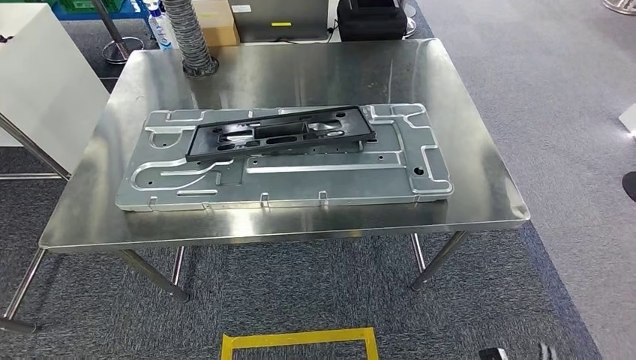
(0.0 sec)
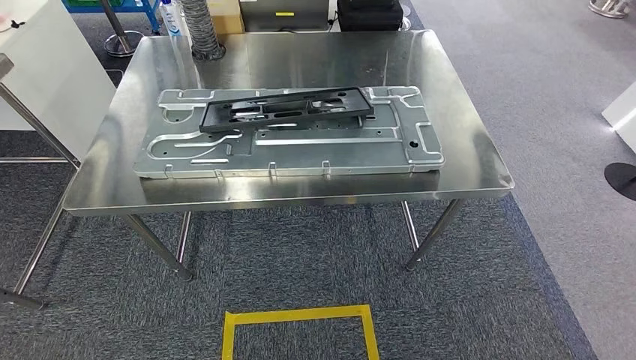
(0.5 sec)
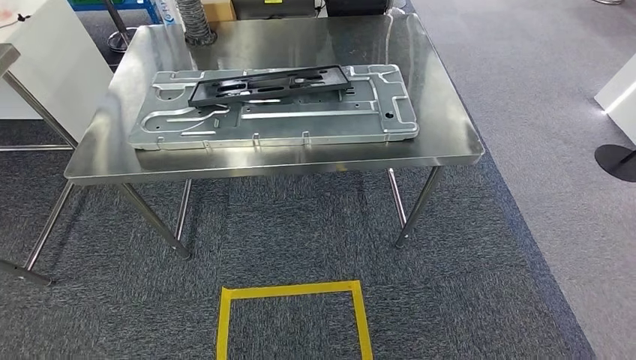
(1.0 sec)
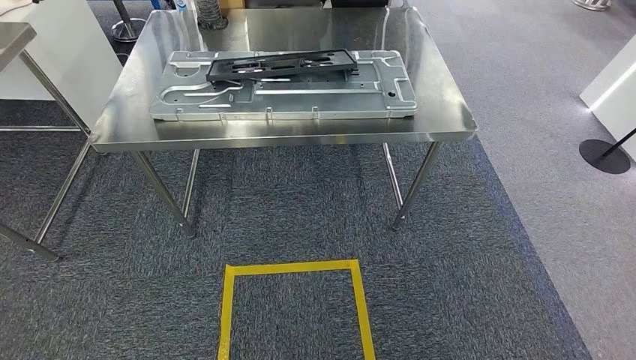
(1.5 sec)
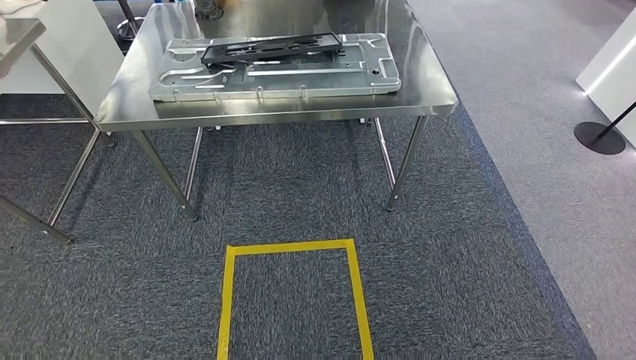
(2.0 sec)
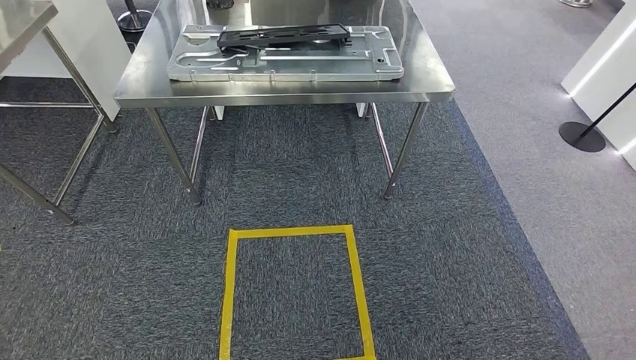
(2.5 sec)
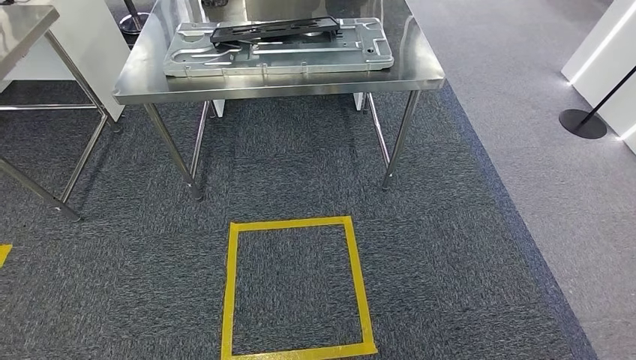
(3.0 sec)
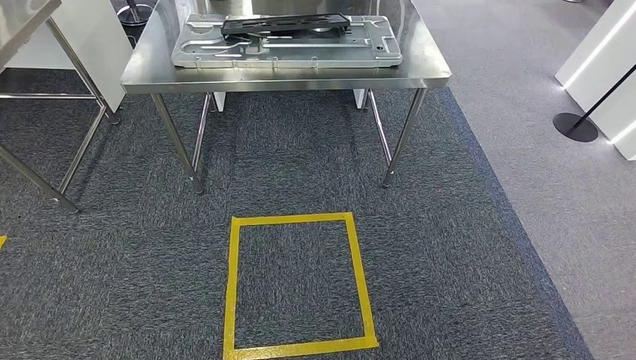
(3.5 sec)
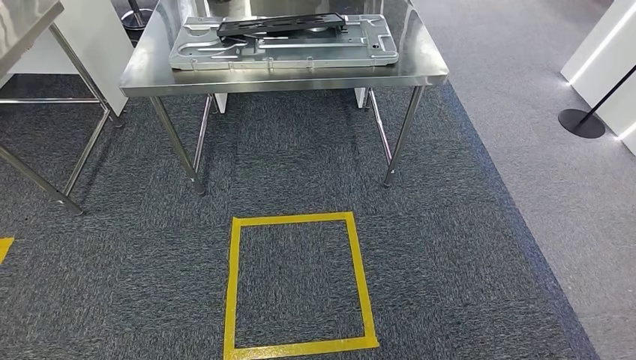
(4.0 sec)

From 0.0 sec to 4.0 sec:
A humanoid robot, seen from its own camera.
Step, from 0.5 sec to 4.0 sec: Return to the initial position at the shelf.

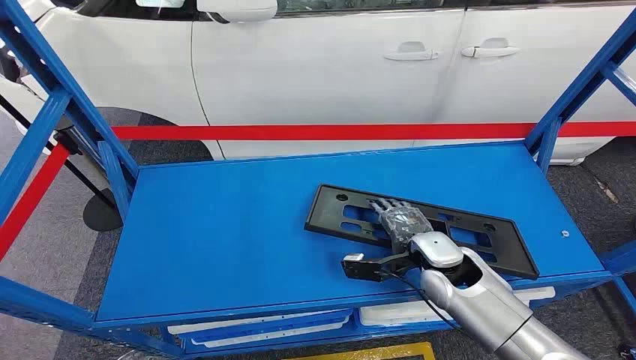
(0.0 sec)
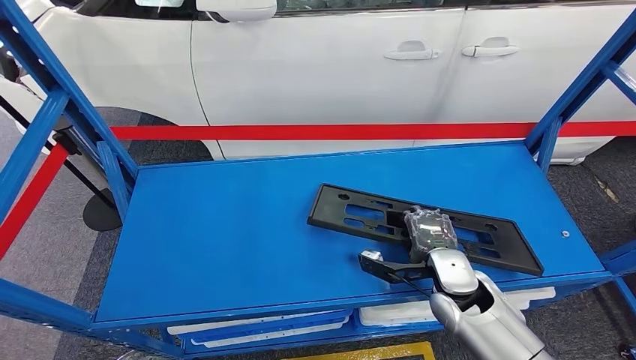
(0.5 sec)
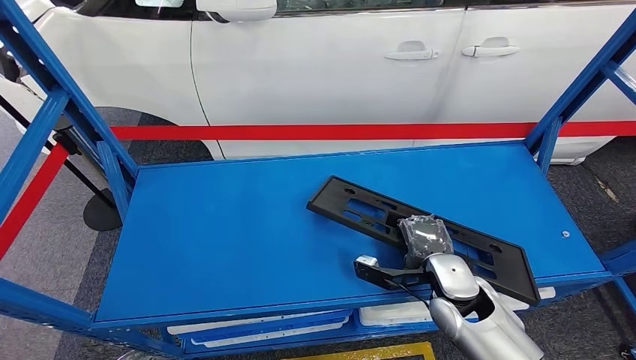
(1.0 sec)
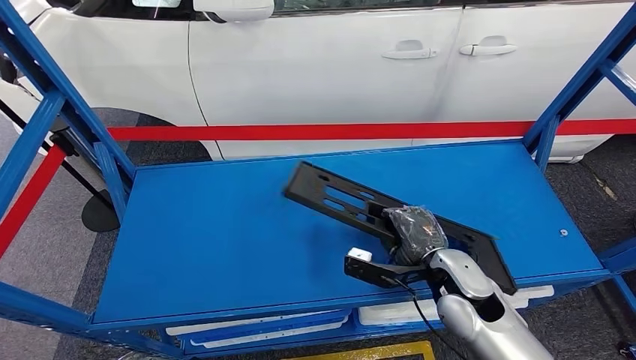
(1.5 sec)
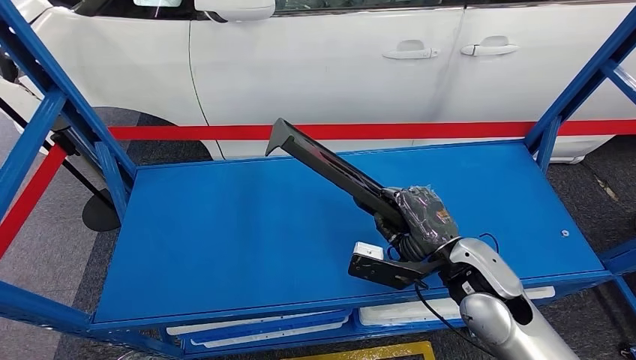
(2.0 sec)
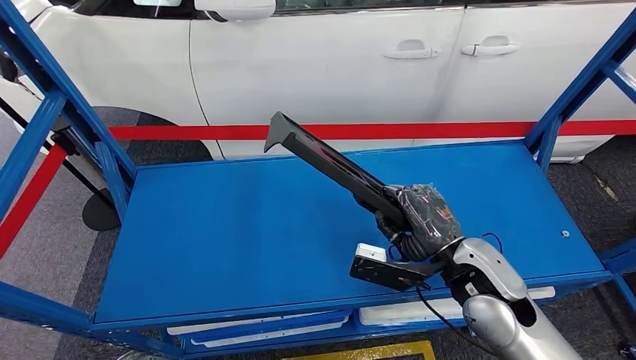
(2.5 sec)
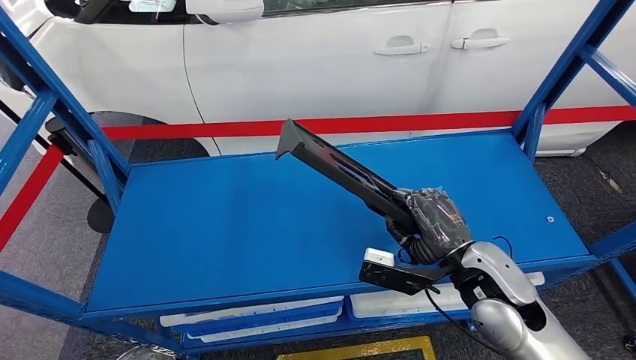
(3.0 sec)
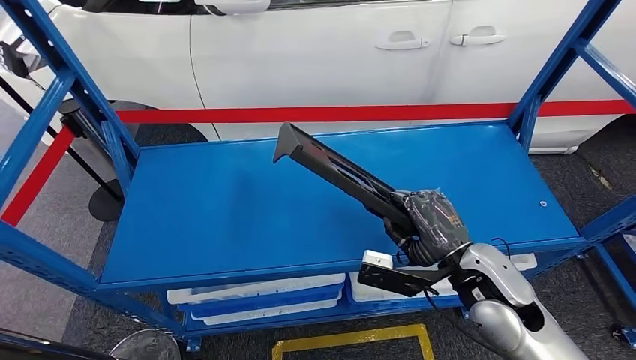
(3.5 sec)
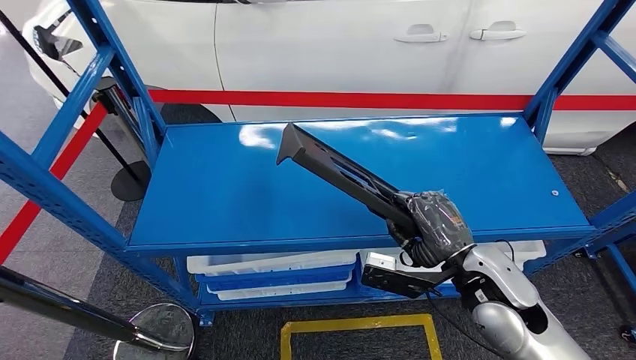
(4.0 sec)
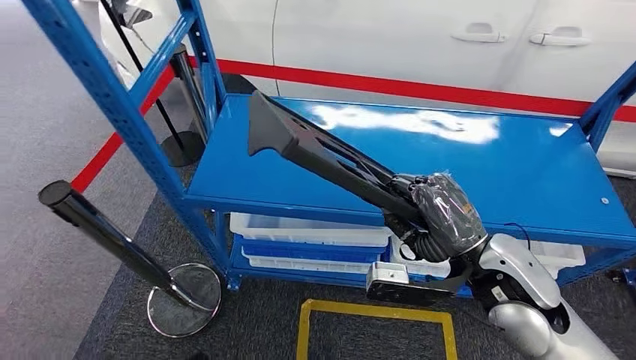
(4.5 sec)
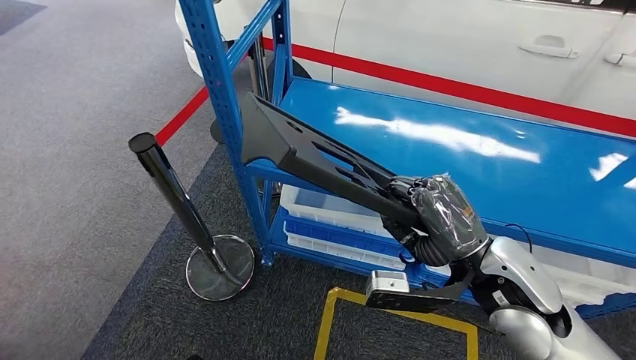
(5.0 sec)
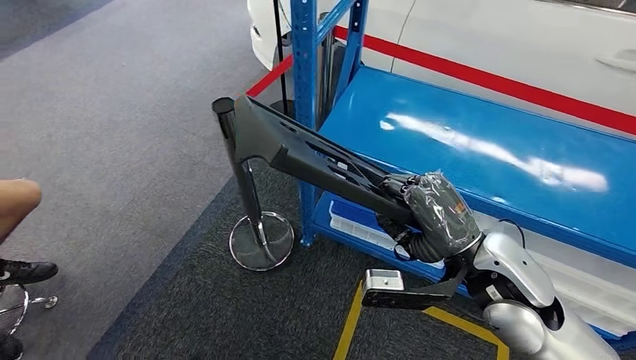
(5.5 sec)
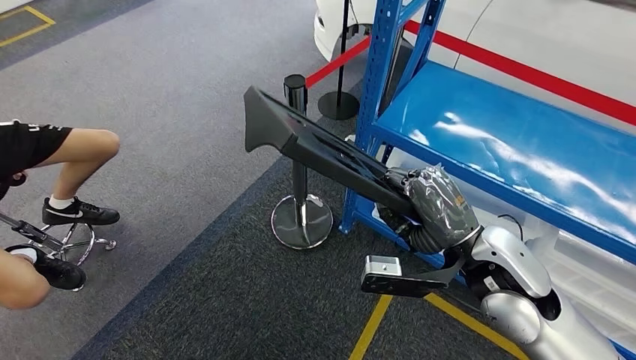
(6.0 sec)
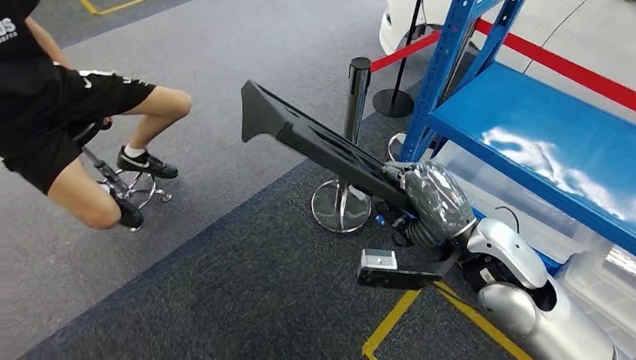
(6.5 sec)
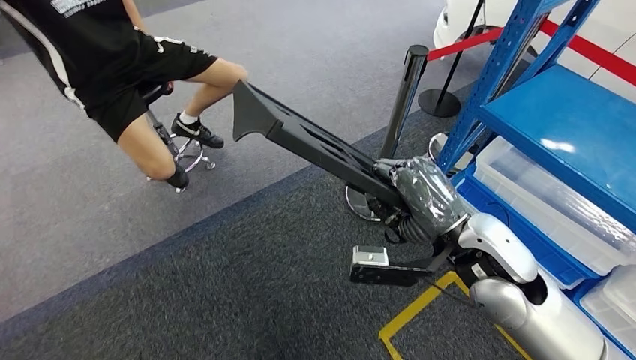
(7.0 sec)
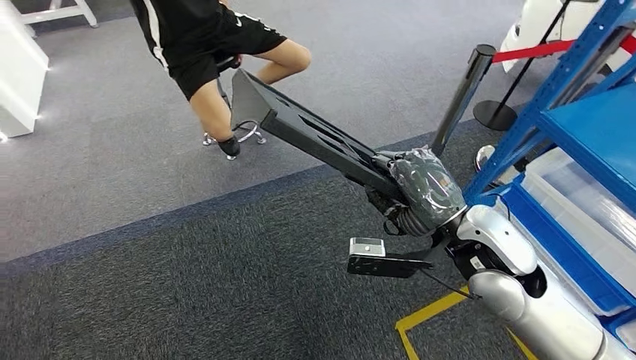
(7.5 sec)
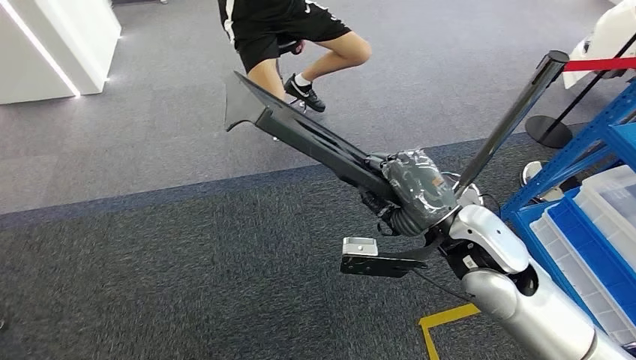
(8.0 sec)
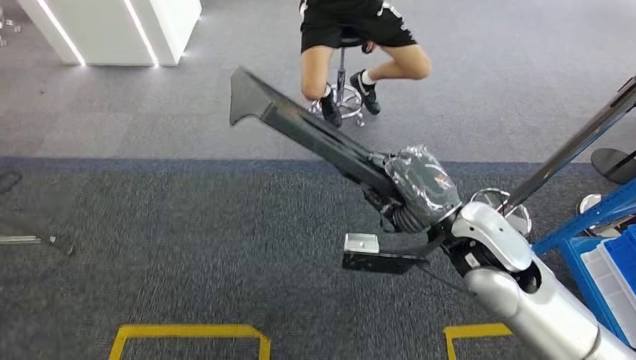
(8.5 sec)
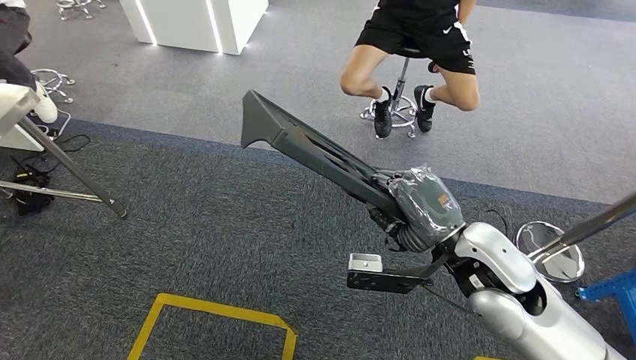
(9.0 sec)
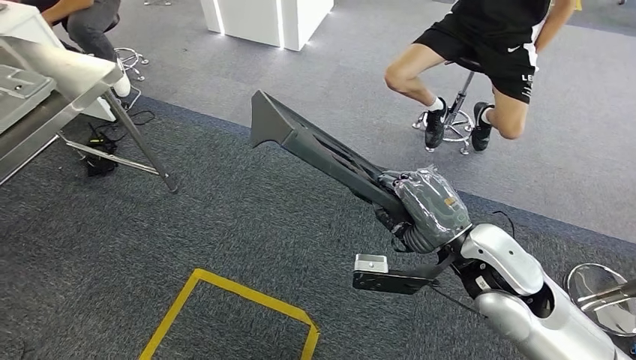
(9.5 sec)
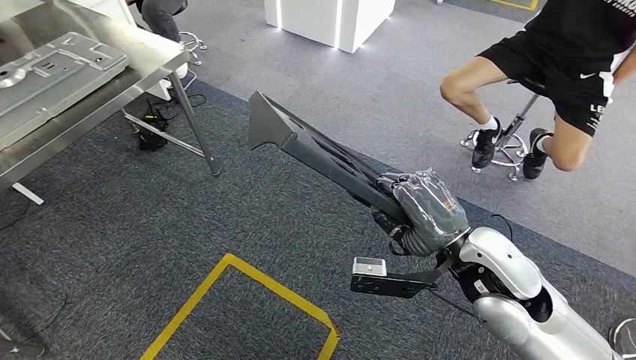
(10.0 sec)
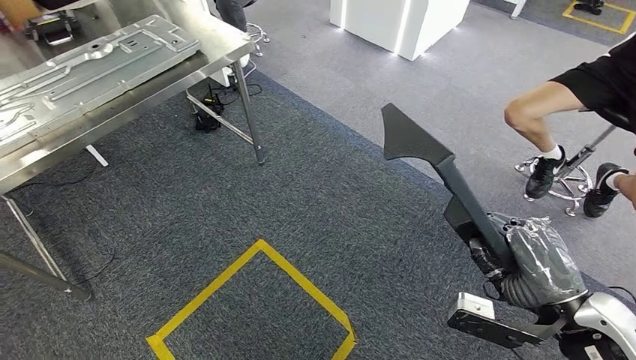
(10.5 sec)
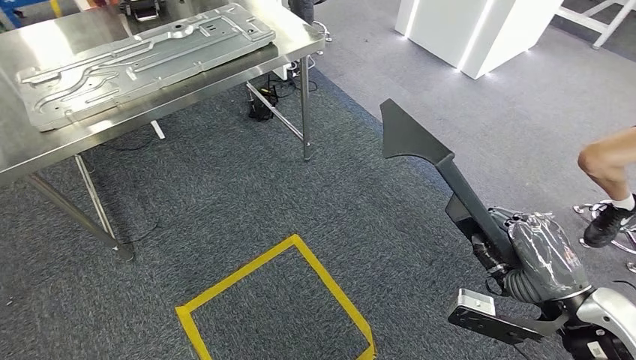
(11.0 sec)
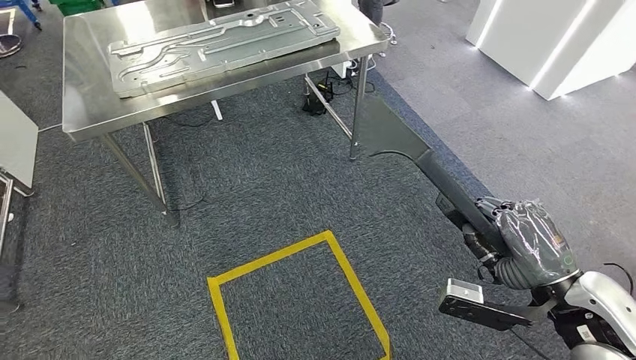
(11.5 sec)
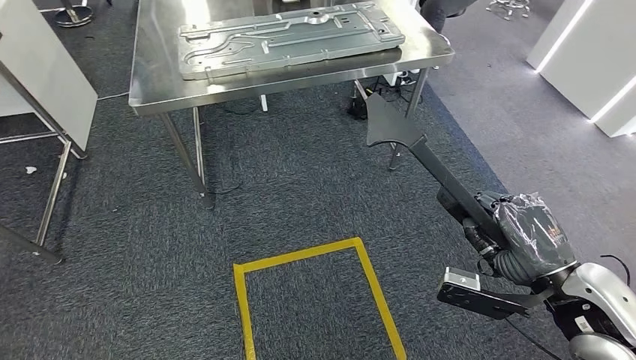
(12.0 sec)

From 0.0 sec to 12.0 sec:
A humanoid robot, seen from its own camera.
Step, from 0.0 sec to 4.5 sec: Pick up the large parts from the shelf.

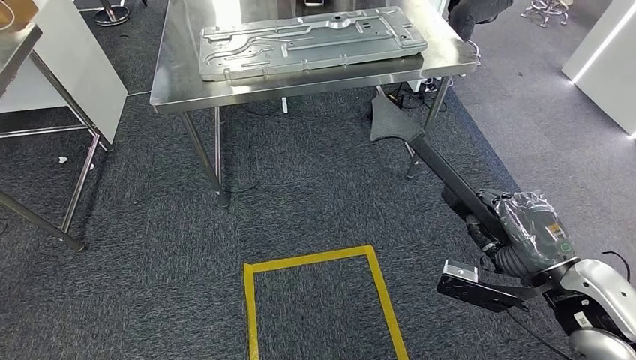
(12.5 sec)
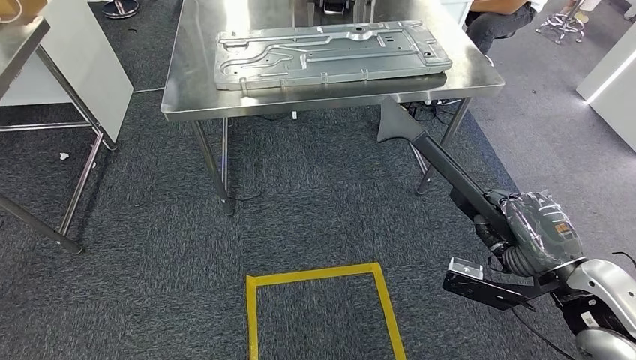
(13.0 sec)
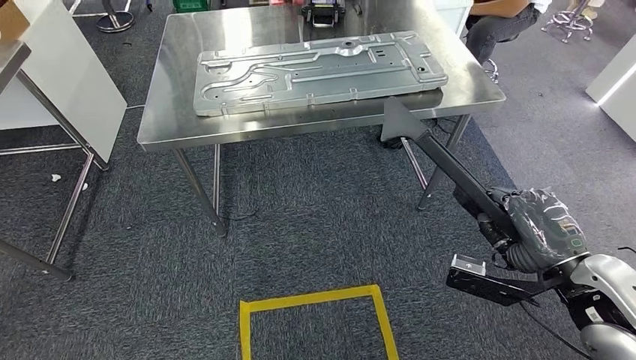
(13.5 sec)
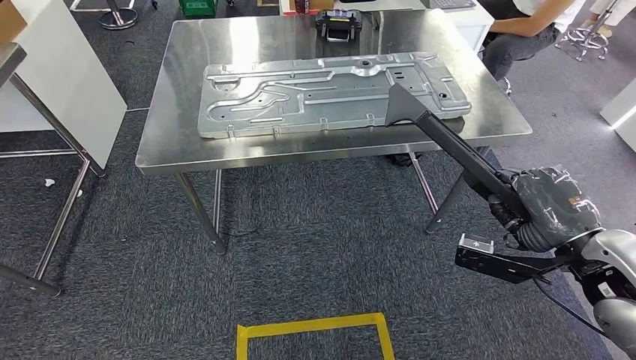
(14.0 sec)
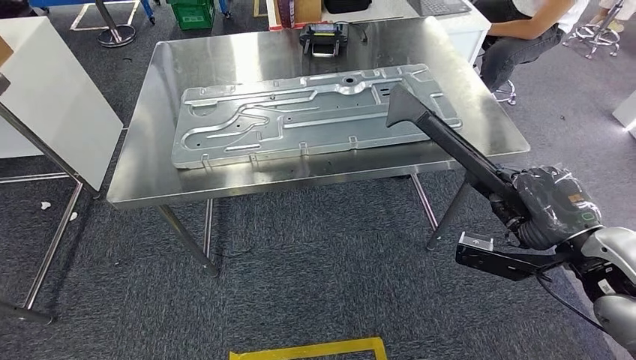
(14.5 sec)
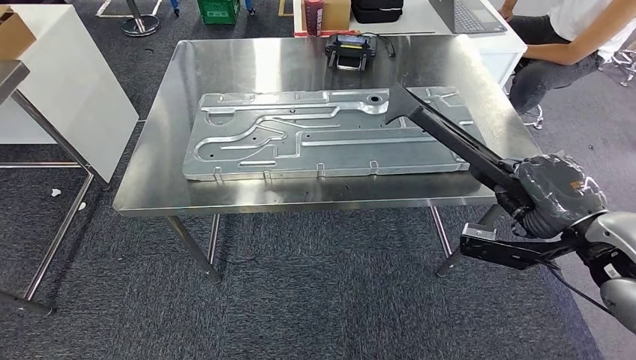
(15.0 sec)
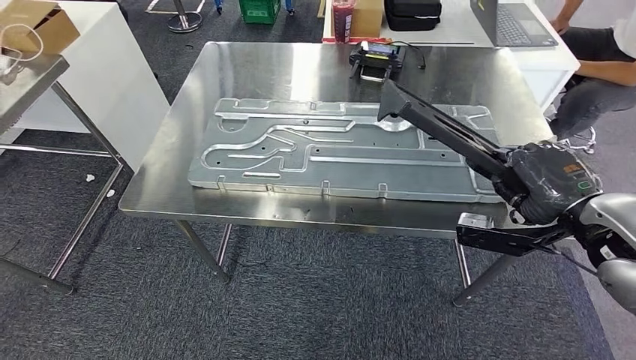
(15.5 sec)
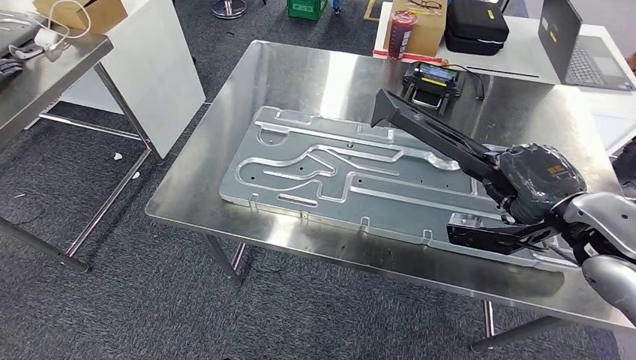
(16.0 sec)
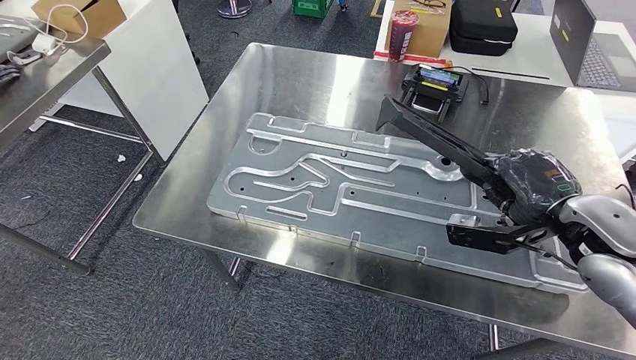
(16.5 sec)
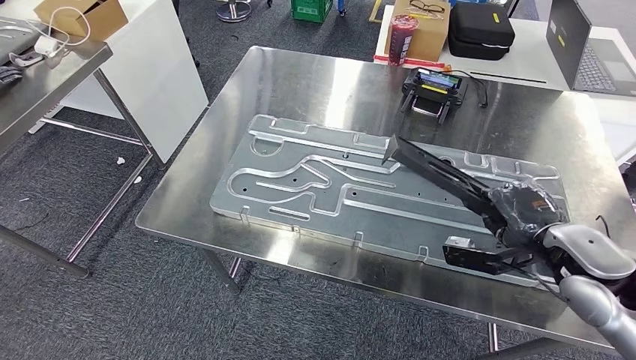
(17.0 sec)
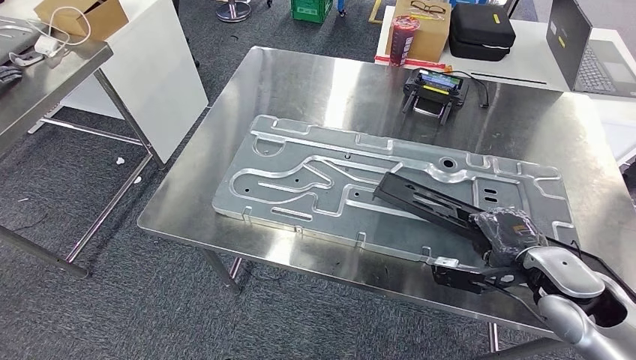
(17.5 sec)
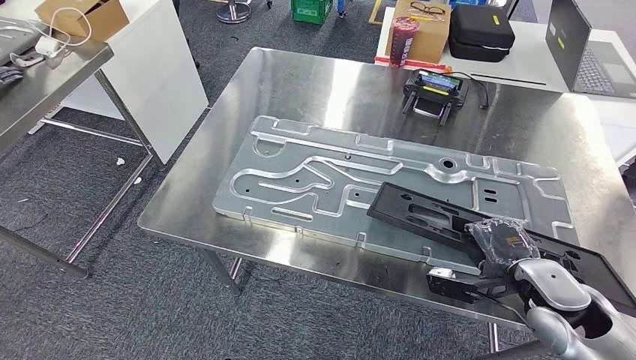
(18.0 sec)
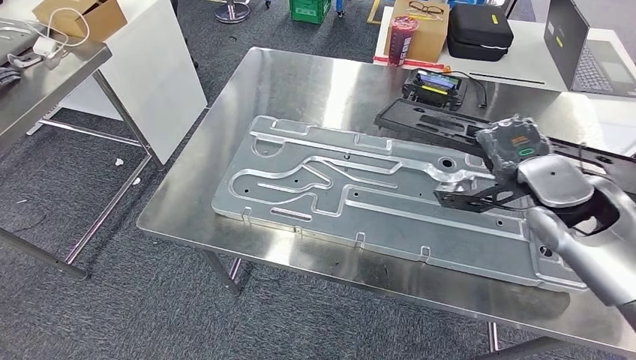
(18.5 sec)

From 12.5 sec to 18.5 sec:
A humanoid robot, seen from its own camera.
Step, from 12.5 sec to 15.0 sec: Move the large parts to the workbench.
